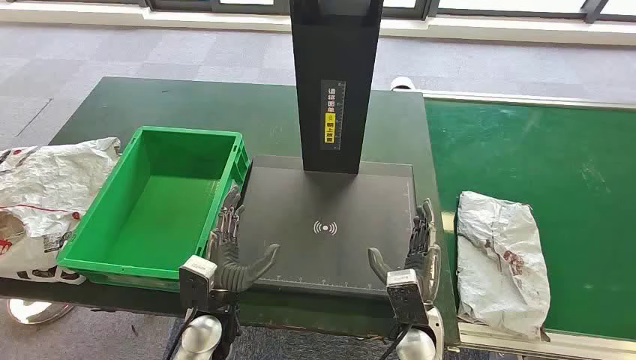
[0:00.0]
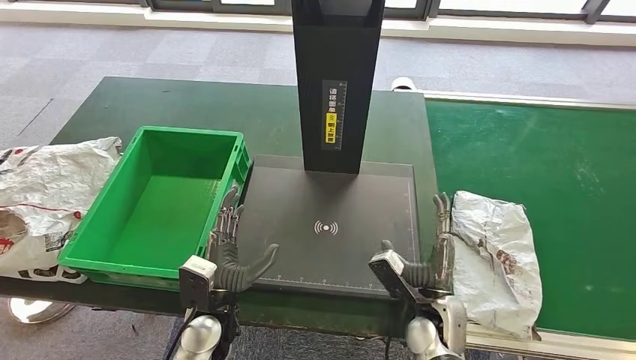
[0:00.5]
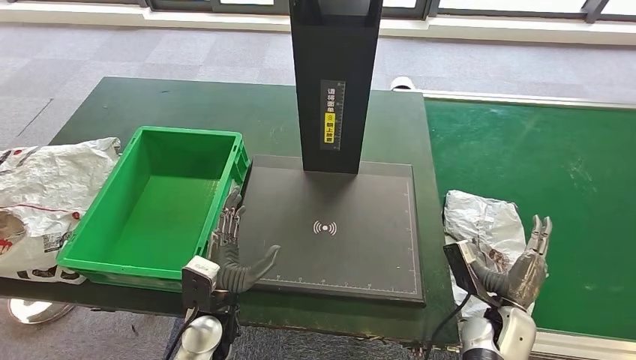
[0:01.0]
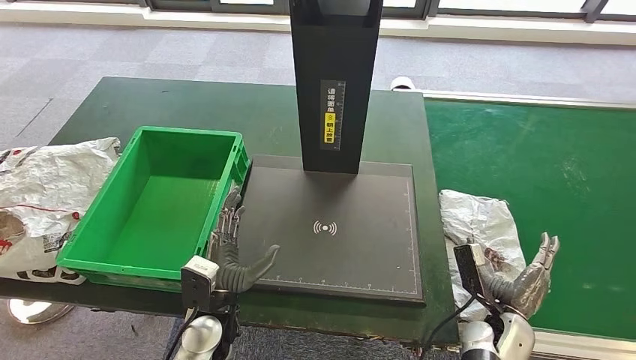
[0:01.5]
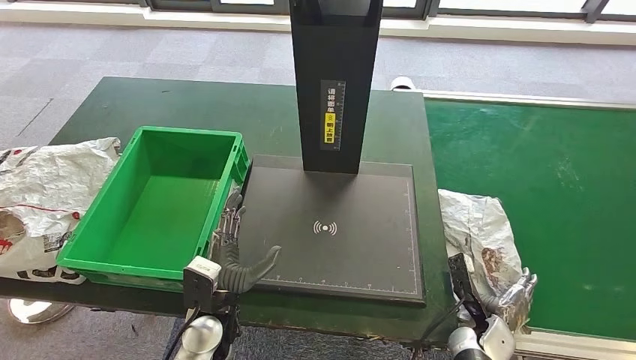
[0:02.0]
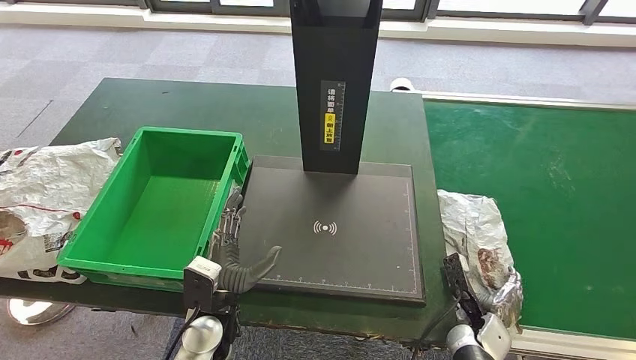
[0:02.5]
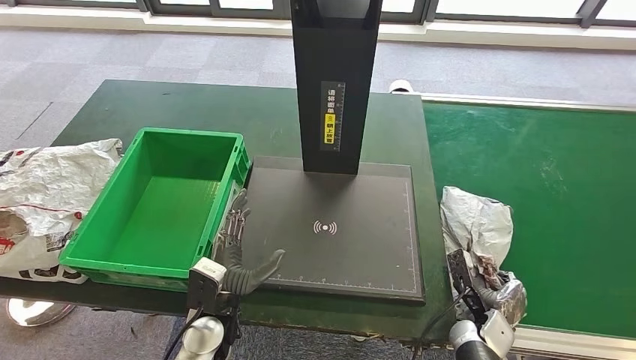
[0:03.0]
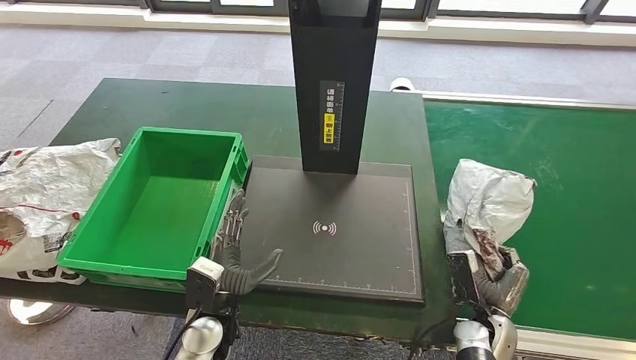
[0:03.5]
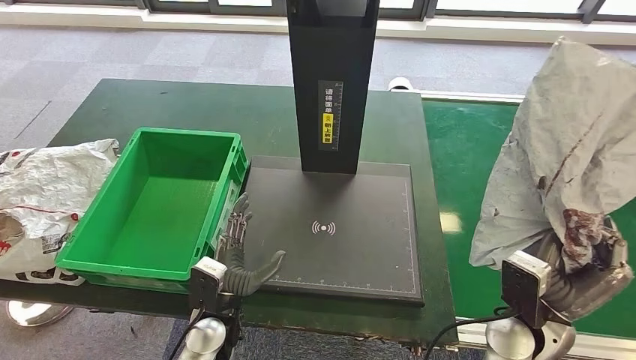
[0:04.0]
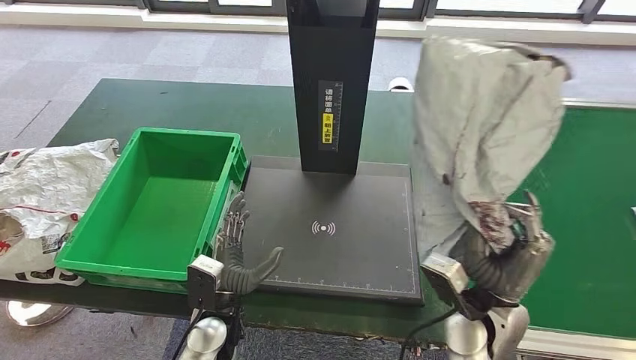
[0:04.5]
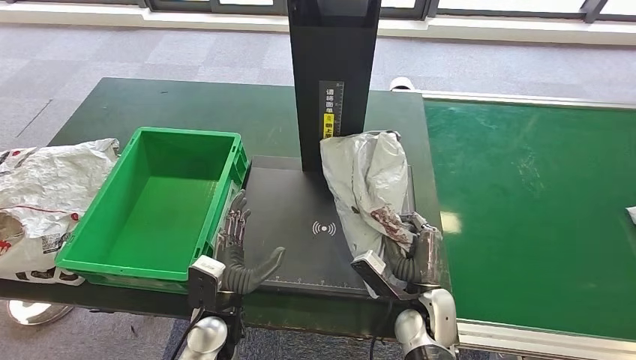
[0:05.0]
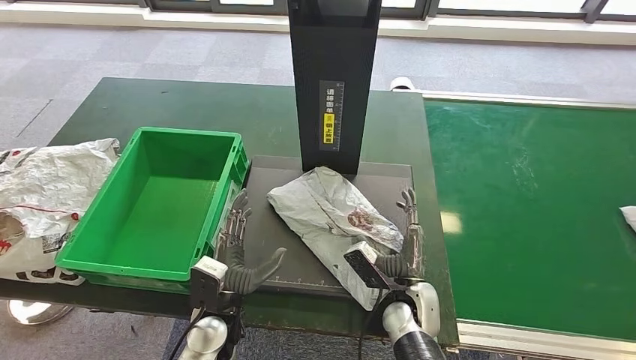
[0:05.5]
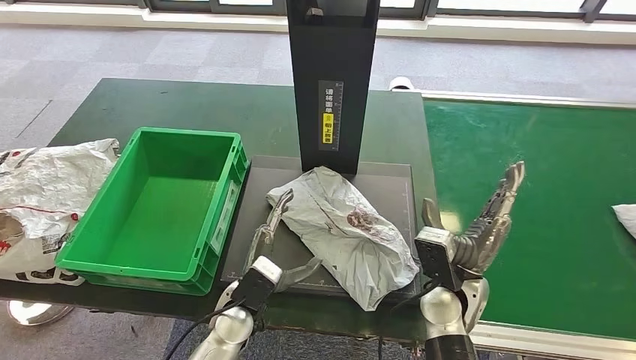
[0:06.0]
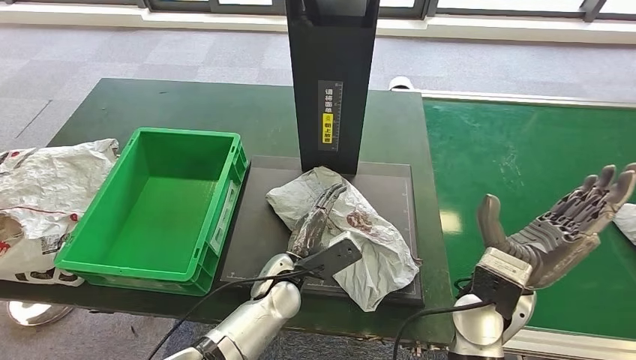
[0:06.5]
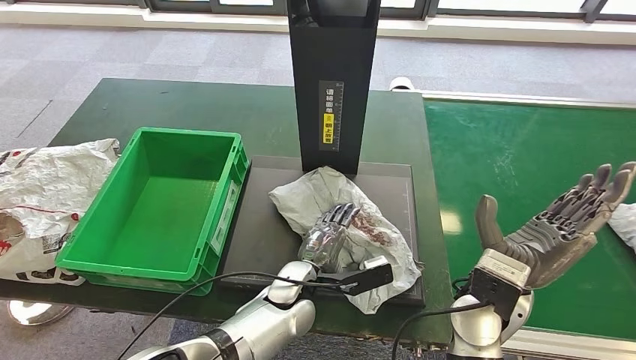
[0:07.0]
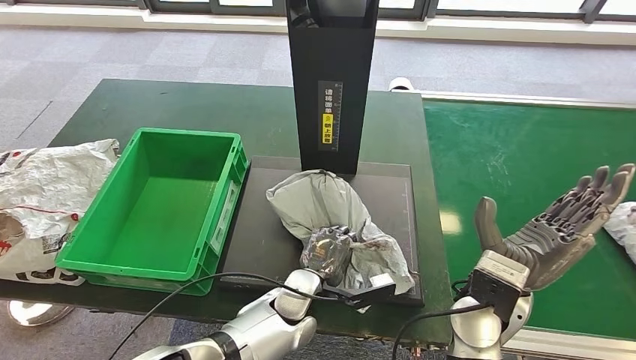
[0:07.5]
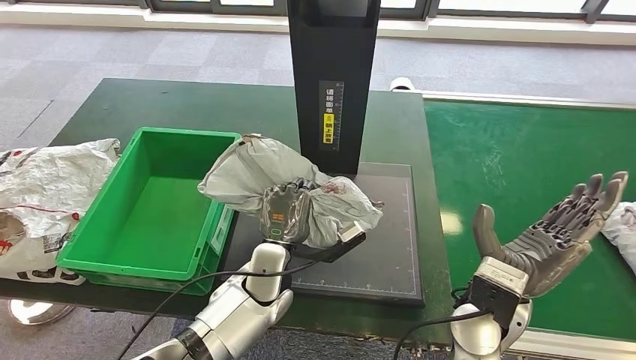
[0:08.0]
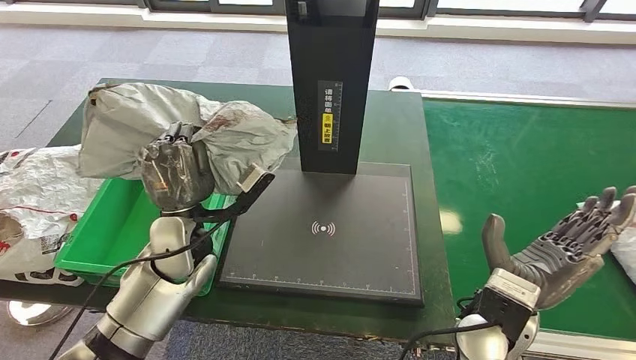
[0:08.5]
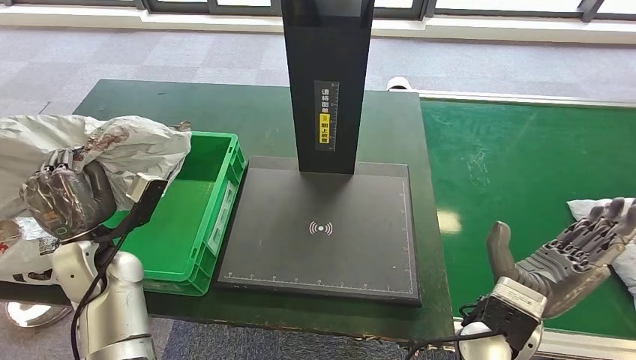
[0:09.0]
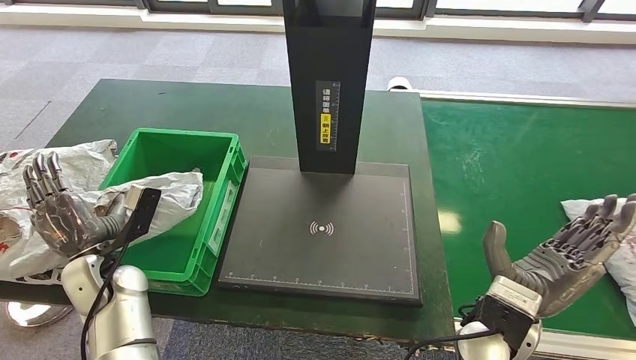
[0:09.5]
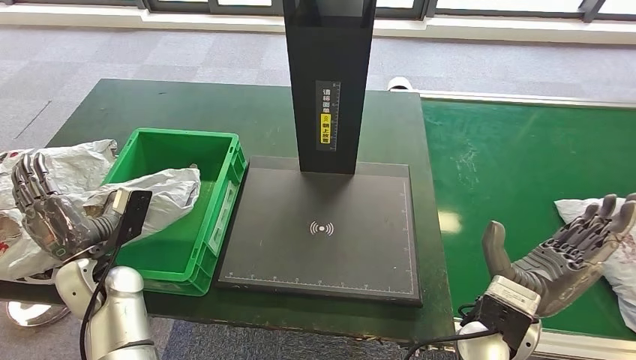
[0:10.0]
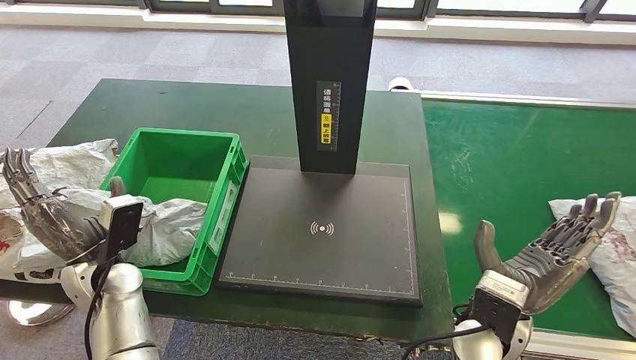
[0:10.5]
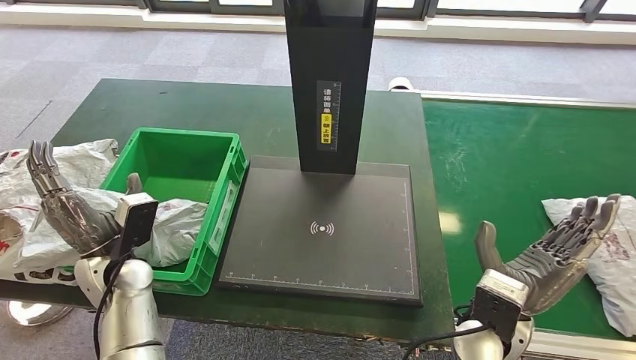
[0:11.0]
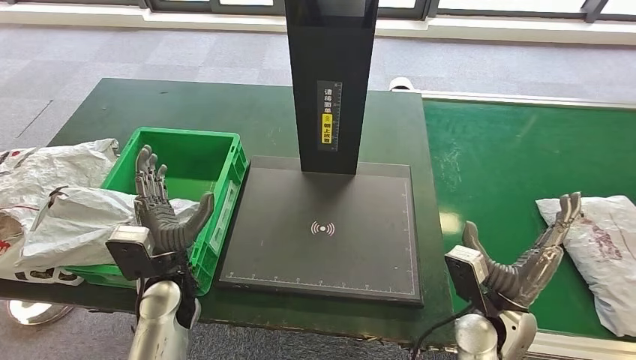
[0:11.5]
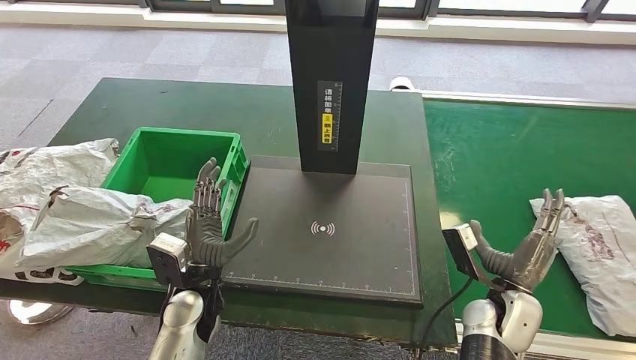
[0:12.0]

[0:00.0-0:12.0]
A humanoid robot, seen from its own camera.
Step, 0.0 to 4.0 s: Take the parcel off the conveyor belt.
Step, 4.5 to 6.0 s: Place the parcel onto the inbound machine.
Step, 6.5 to 8.5 s: Pick up the parcel from the inbound machine.
Step, 9.0 to 11.5 s: Put the parcel inside the courier box.
6.0 to 8.0 s: The left hand heads forward, covering approximately 5 cm, while the right hand is displaced upward by some 5 cm.

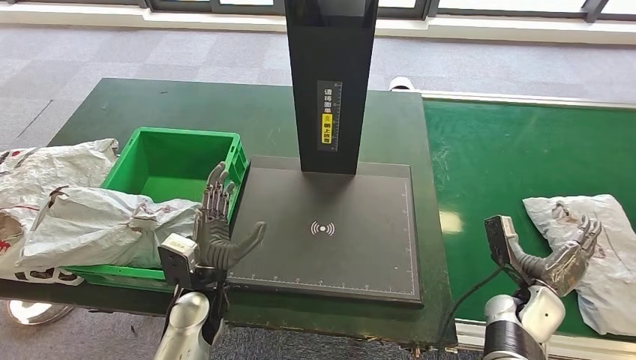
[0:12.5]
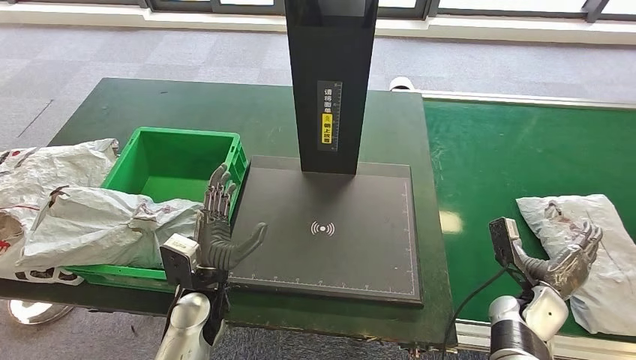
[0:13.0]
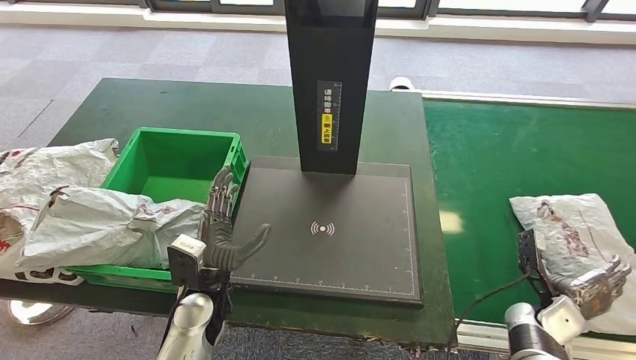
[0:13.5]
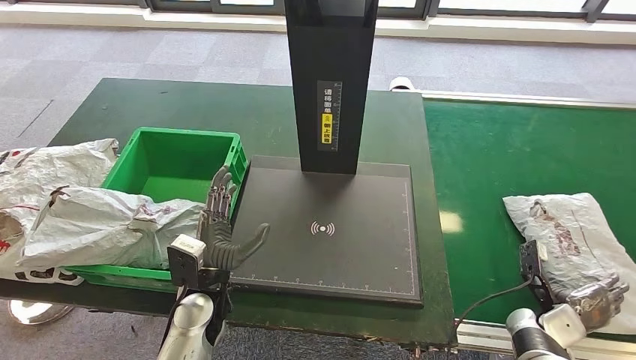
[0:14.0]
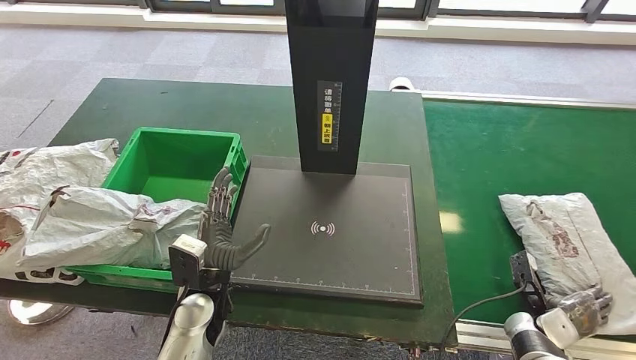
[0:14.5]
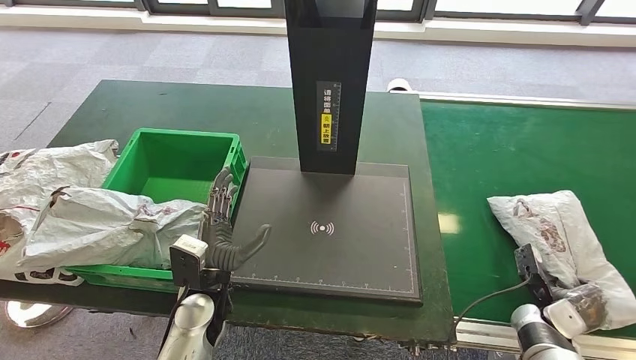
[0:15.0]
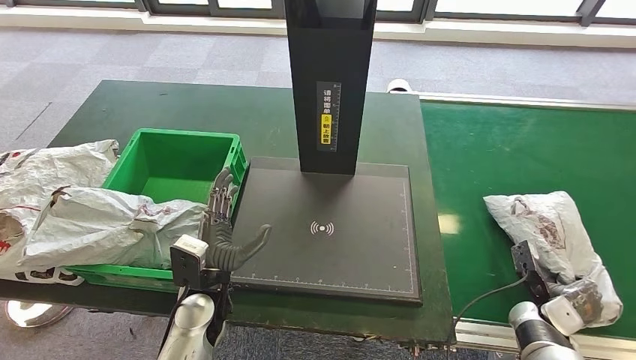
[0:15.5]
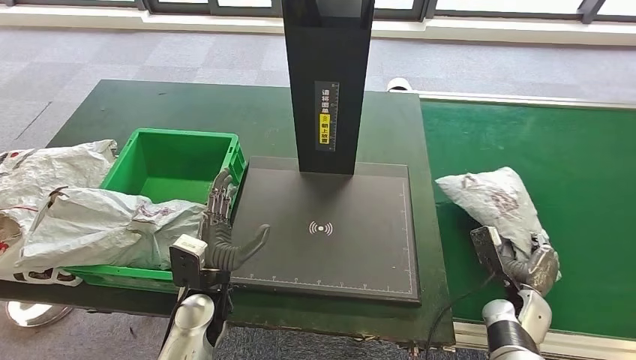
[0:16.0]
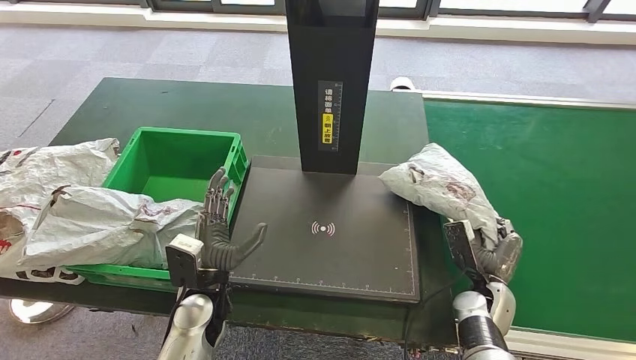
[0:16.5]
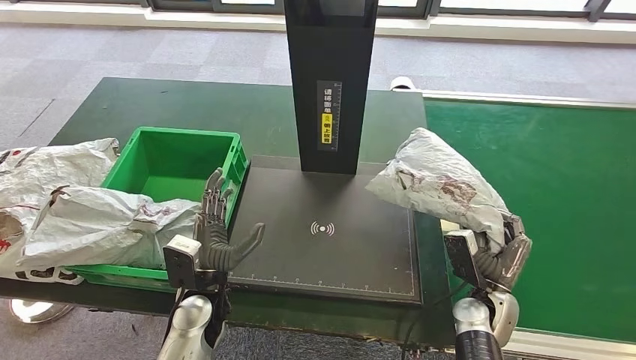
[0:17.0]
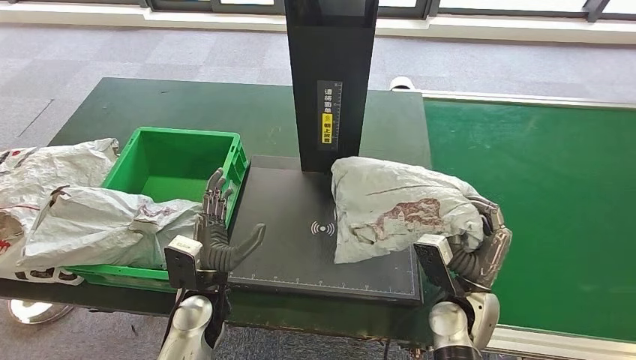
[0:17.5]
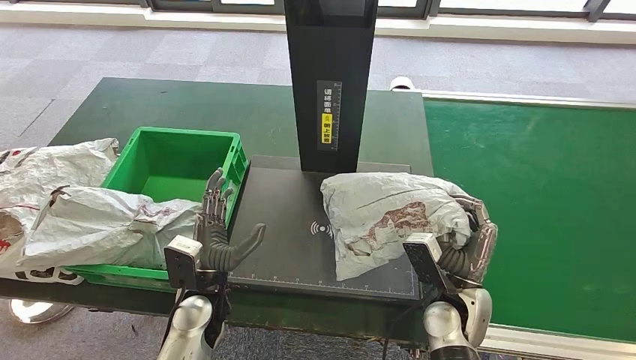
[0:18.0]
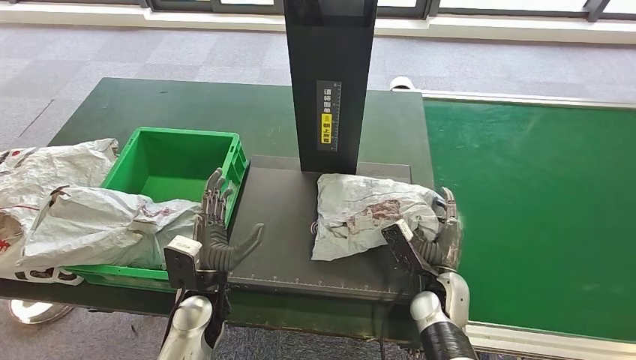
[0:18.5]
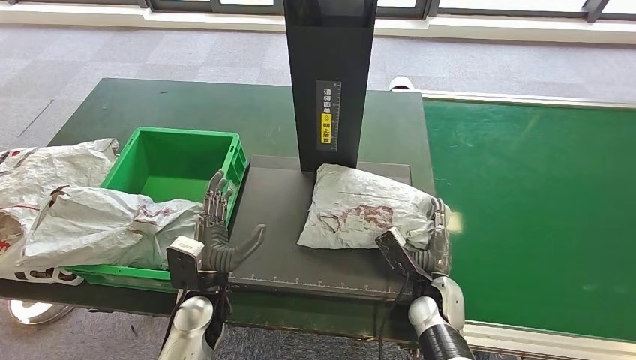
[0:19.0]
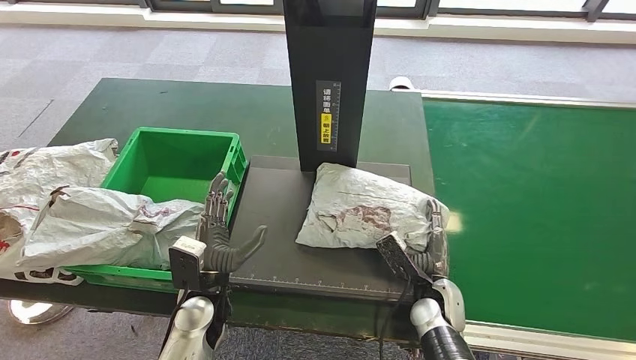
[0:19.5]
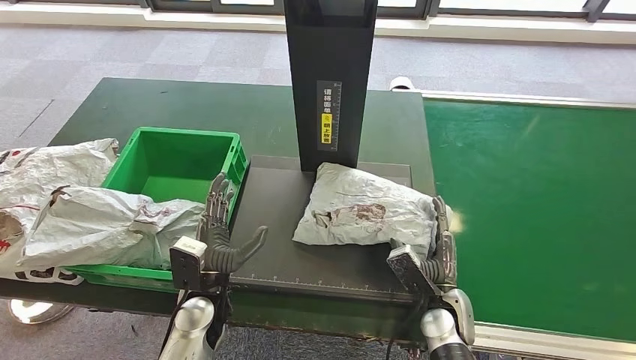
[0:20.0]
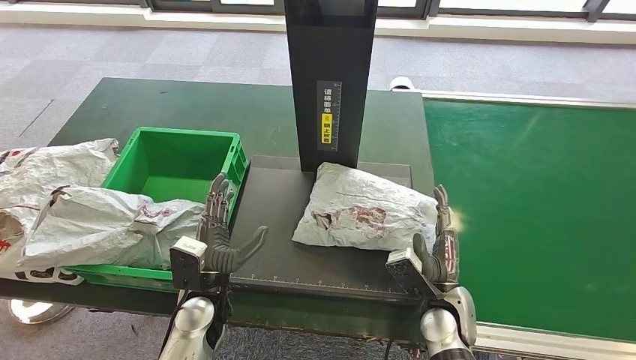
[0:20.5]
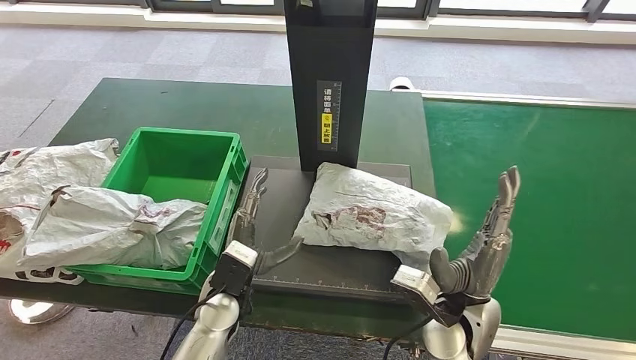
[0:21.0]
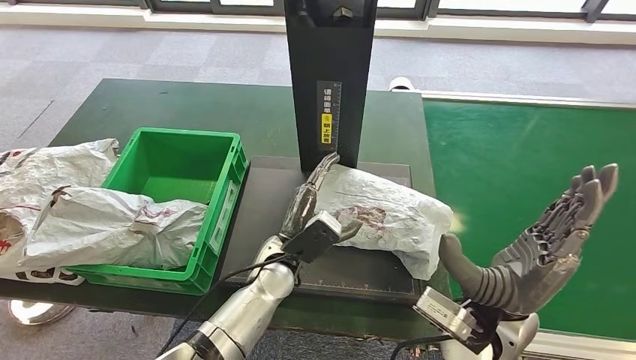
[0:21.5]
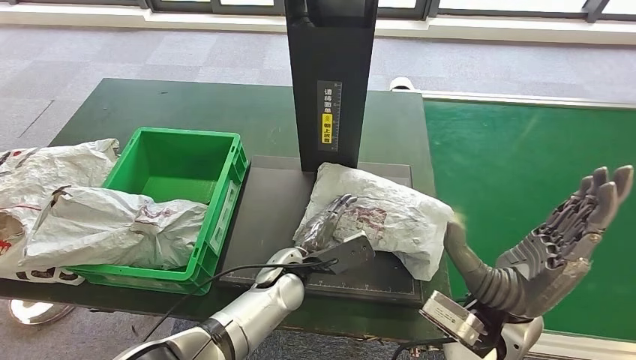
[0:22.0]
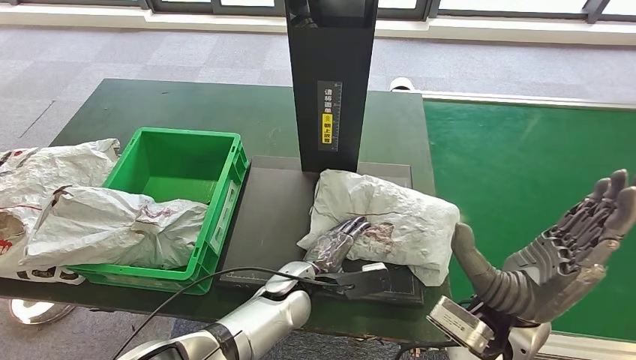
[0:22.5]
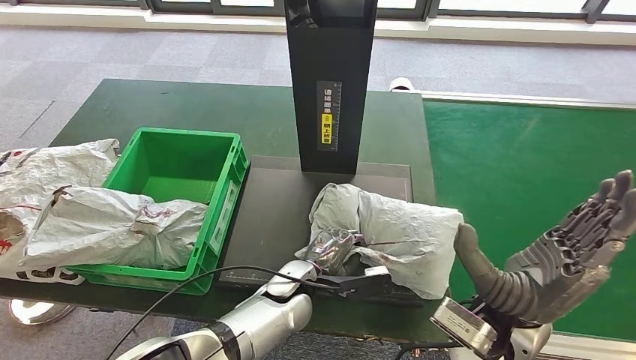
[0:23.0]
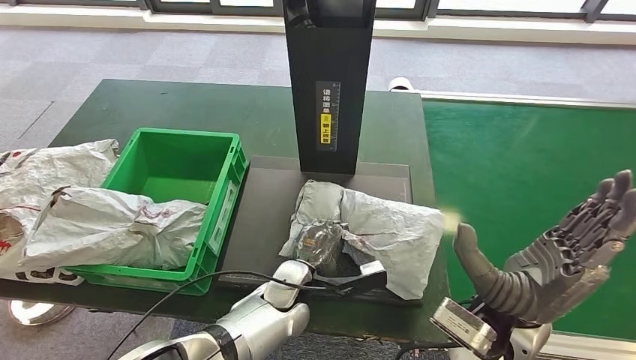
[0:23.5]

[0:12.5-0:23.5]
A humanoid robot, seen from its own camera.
Step, 12.5 to 17.5 s: Pick up the parcel from the conveyor belt.
Step, 18.0 to 20.5 s: Place the parcel onto the inbound machine.
12.5 to 14.5 s: The right hand is displaced downward and to the right by roughly 10 cm.
18.0 to 20.0 s: The right hand is displaced downward by roughly 5 cm.
20.0 to 21.5 s: The left hand heads to the right and forward, covering approximately 10 cm. Meanwhile the right hand goes approximately 20 cm upward.
21.5 to 23.5 s: The left hand moves about 5 cm.
